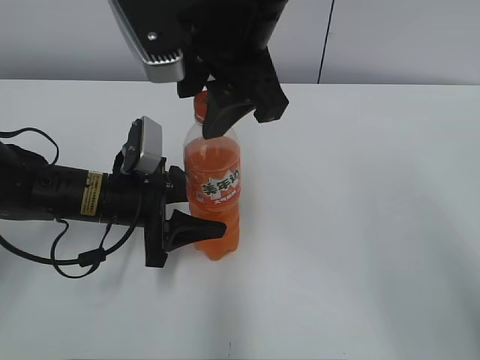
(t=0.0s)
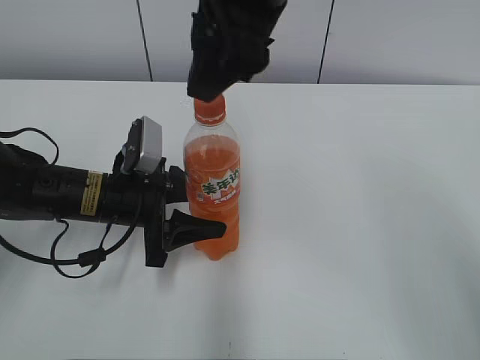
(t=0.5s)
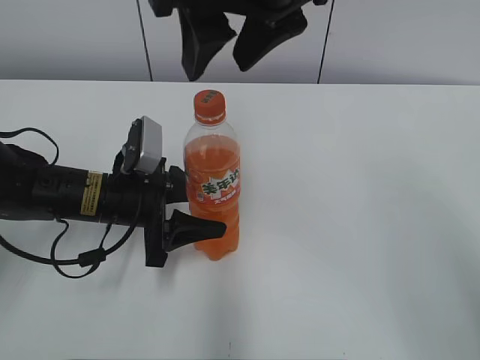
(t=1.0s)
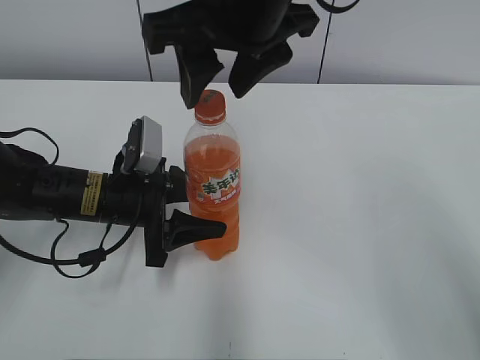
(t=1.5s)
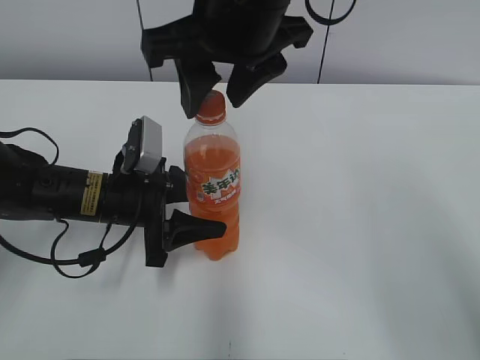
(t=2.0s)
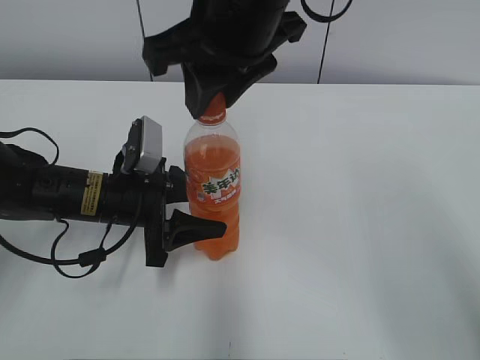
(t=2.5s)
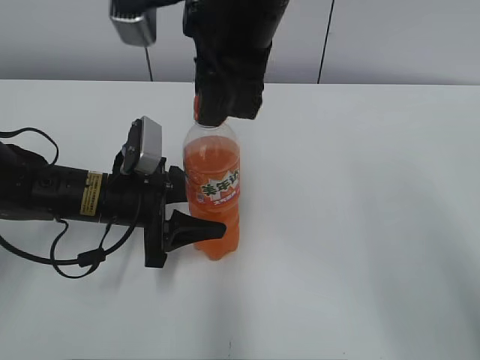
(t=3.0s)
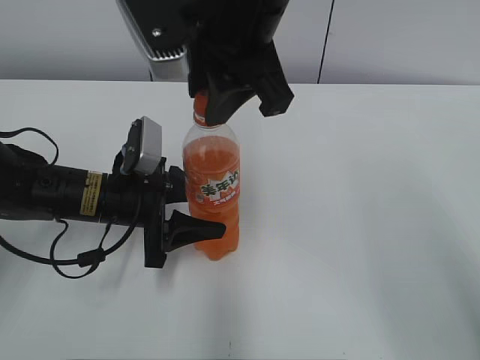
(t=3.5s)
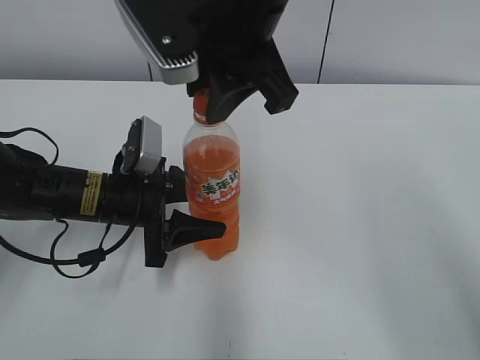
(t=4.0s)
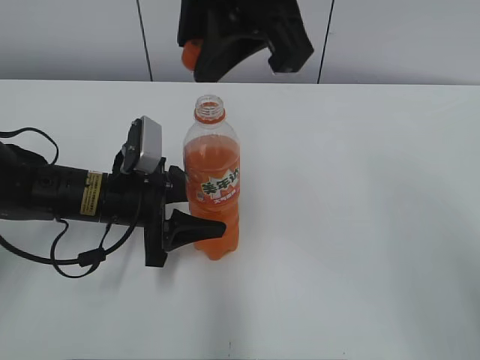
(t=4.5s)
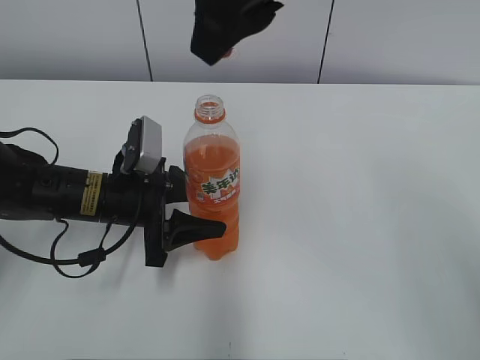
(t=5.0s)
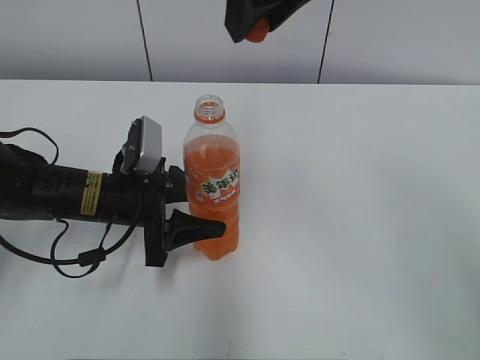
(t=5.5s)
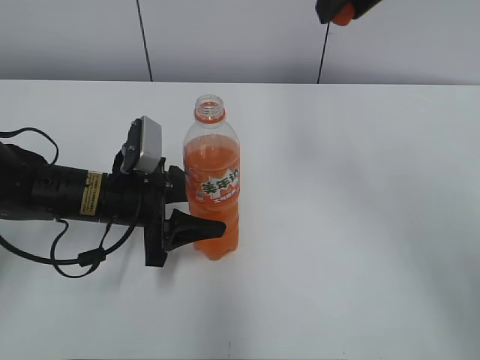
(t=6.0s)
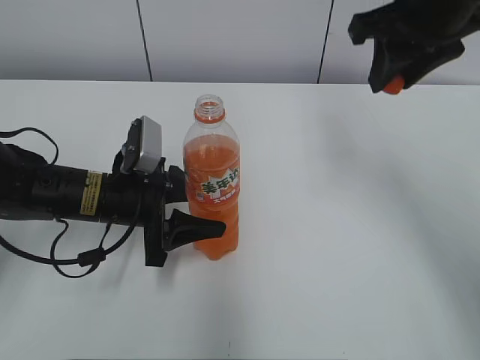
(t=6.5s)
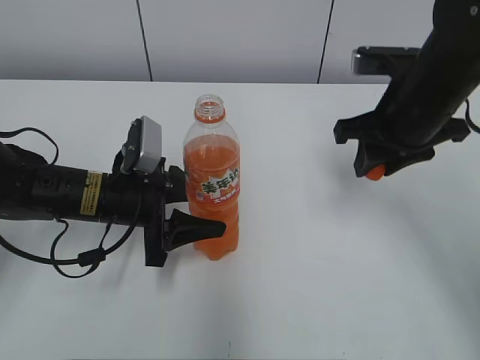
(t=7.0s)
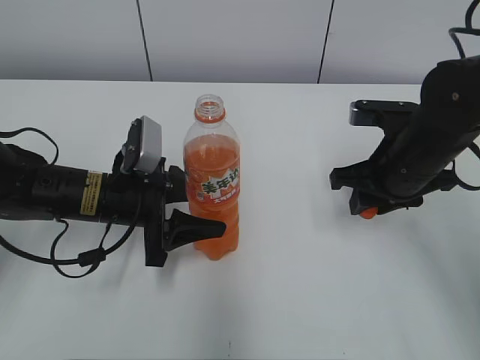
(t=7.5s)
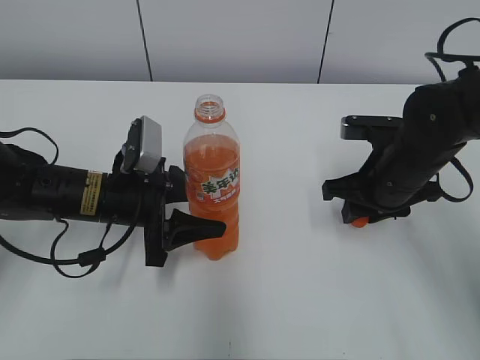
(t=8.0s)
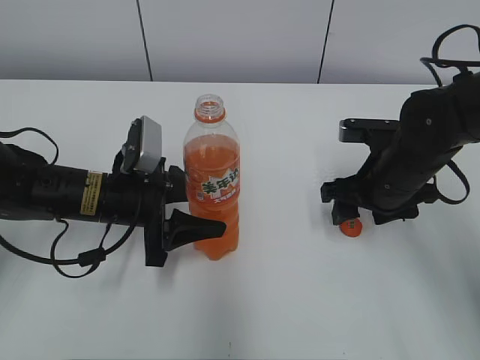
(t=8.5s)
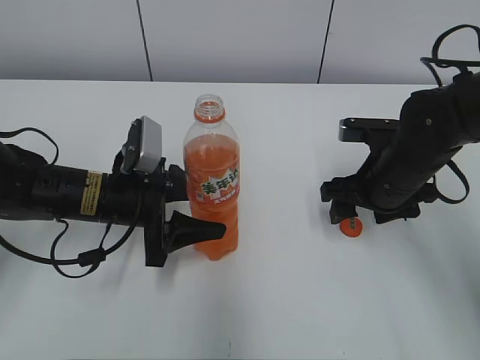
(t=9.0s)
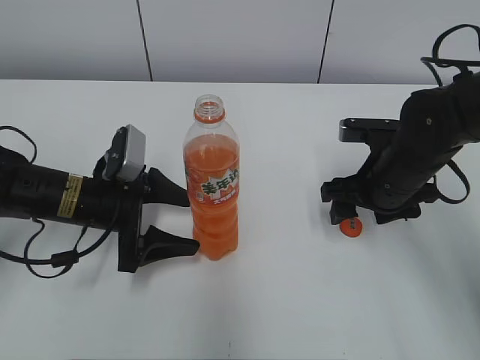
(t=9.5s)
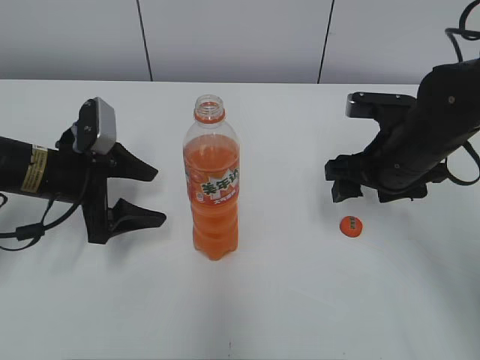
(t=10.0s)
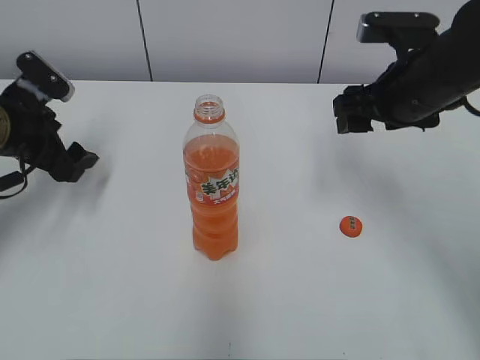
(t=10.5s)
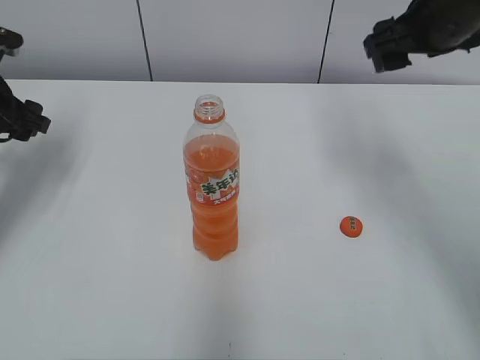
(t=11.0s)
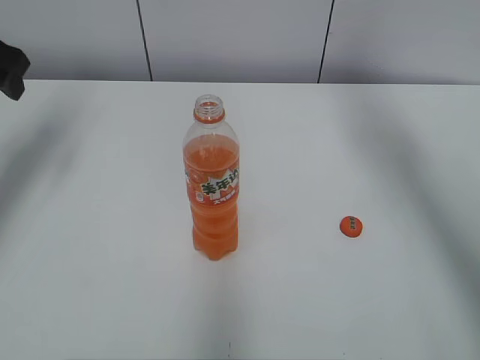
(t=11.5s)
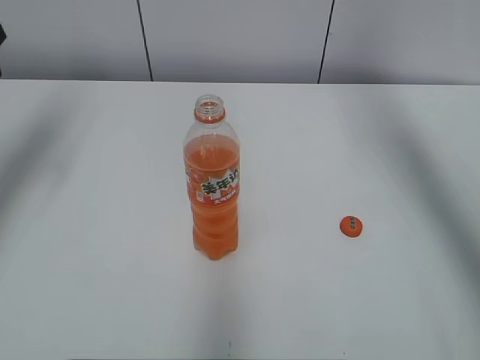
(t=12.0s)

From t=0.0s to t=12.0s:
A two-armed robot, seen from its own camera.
Step, from t=4.5s to t=8.0s: Place the bottle cap on the right.
From t=2.0s to t=4.0s: The right gripper closes its fingers.
From t=4.0s to t=6.0s: The right gripper heads to the right and upward, covering about 15 cm.
From t=6.0s to t=8.0s: The right gripper is displaced downward by roughly 25 cm.
From t=8.0s to t=10.0s: The right gripper opens its fingers. Meanwhile the left gripper heads to the left, covering some 5 cm, and opens its fingers.
From t=10.0s to t=12.0s: The right gripper travels upward by roughly 30 cm. Meanwhile the left gripper heads upward and to the left, covering roughly 25 cm.

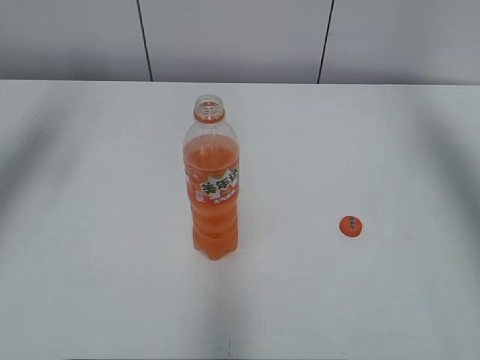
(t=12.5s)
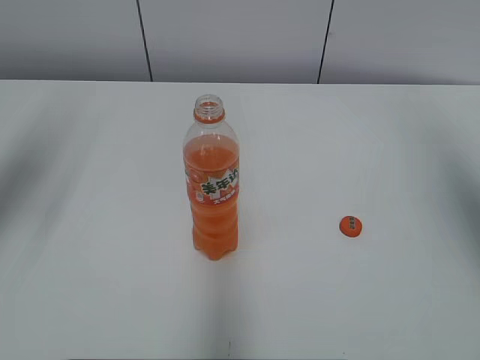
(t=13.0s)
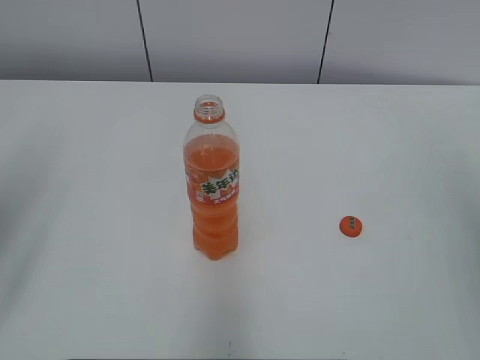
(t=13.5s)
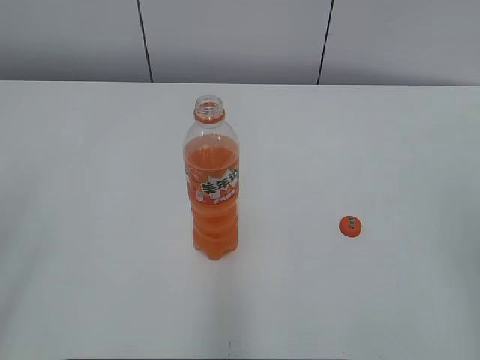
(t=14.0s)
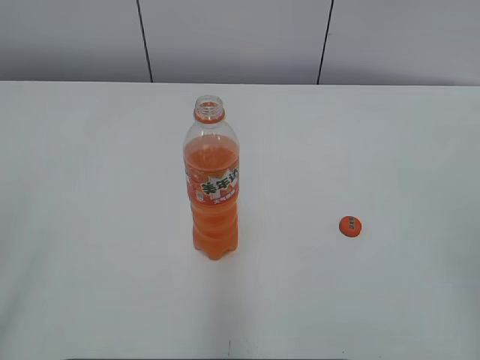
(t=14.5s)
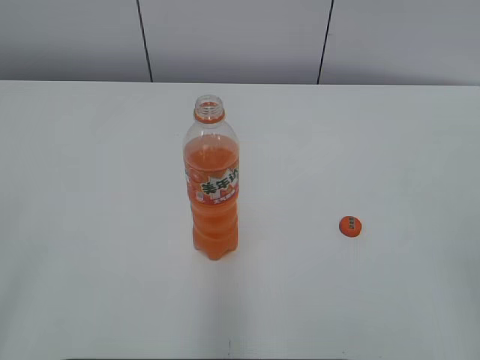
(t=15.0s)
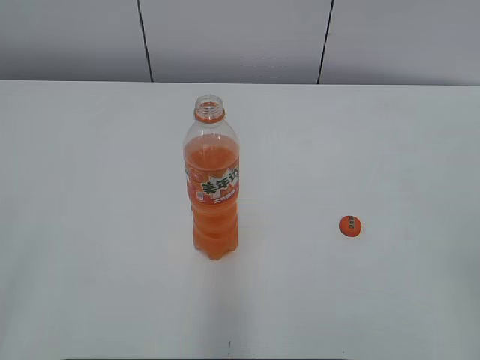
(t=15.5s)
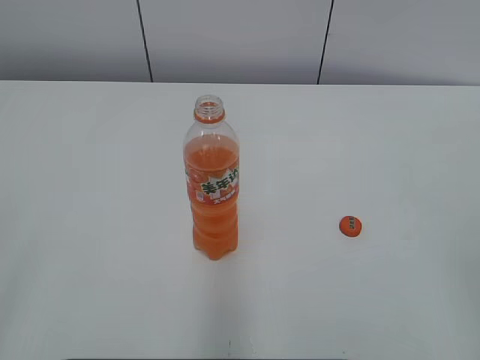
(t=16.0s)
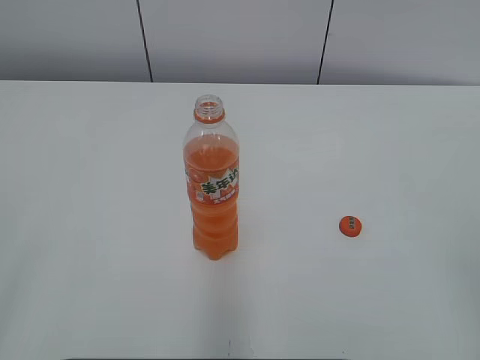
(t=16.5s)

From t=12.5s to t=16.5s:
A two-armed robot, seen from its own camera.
From t=12.5s to t=14.5s: The left gripper travels backward by some 30 cm, while the right gripper heads backward and downward, covering approximately 35 cm.

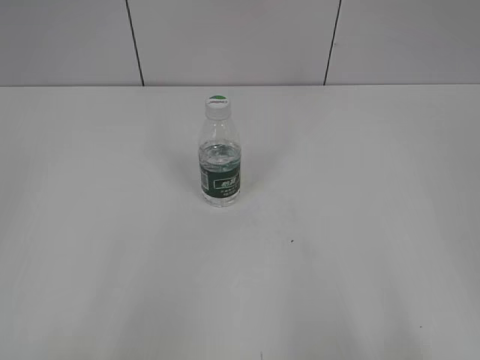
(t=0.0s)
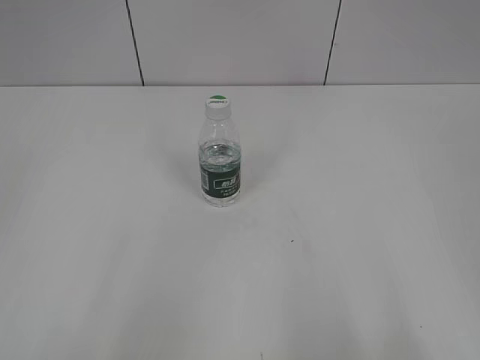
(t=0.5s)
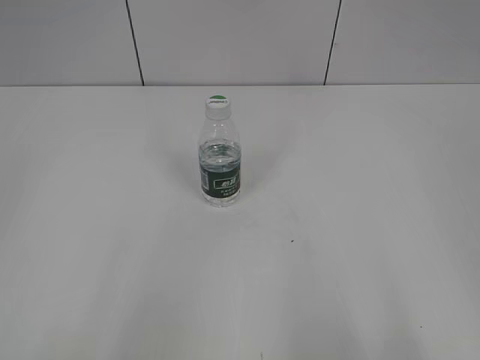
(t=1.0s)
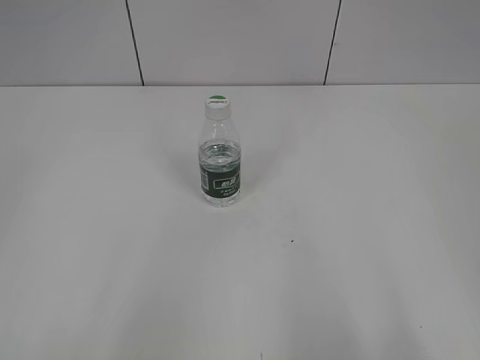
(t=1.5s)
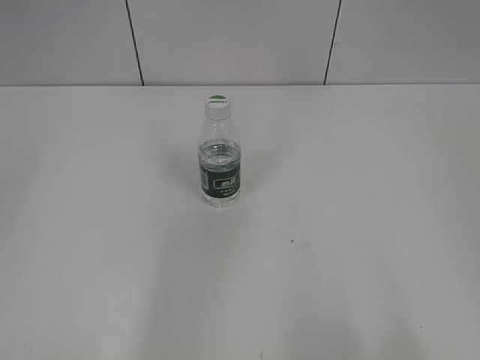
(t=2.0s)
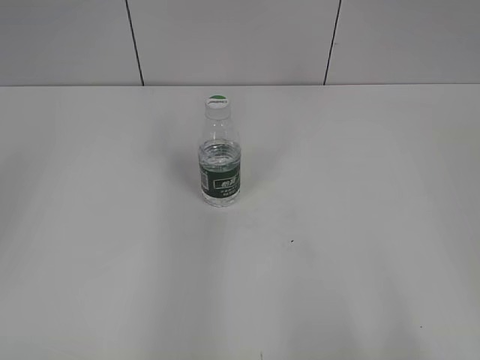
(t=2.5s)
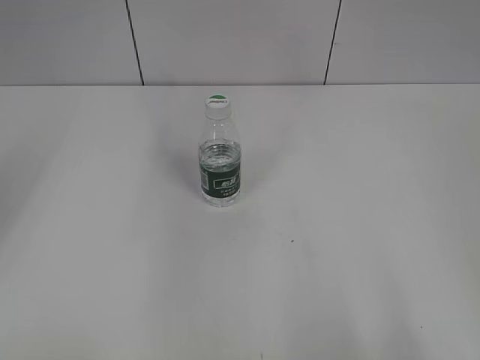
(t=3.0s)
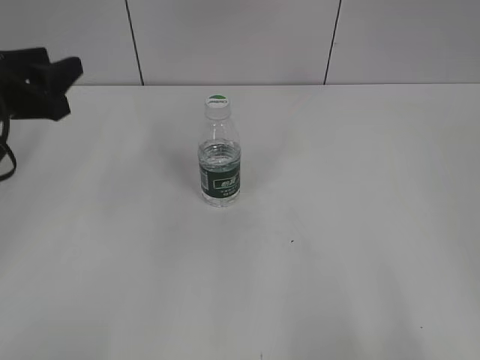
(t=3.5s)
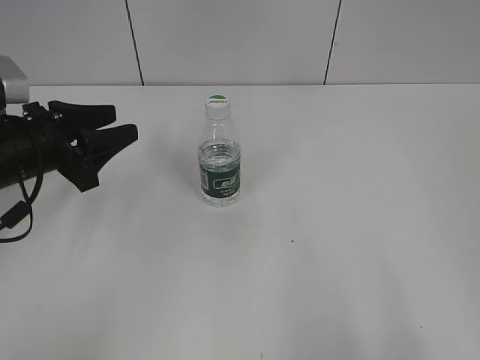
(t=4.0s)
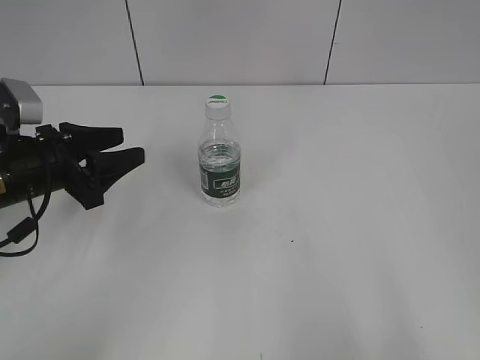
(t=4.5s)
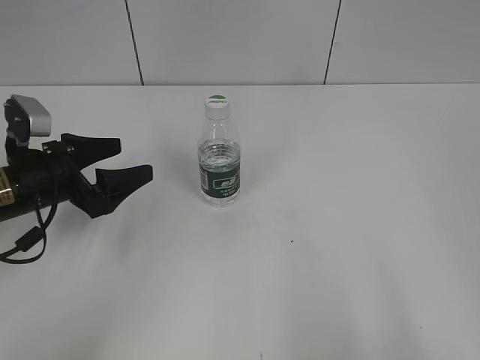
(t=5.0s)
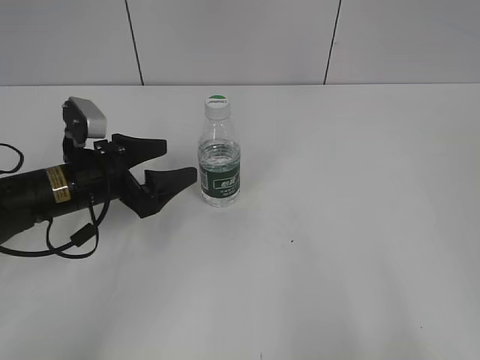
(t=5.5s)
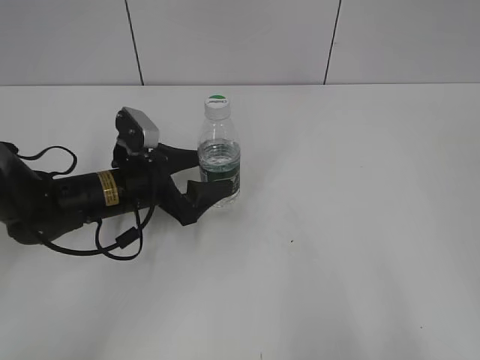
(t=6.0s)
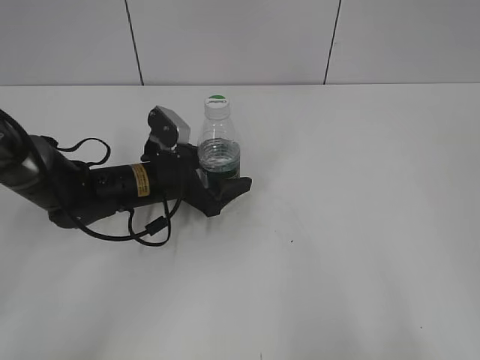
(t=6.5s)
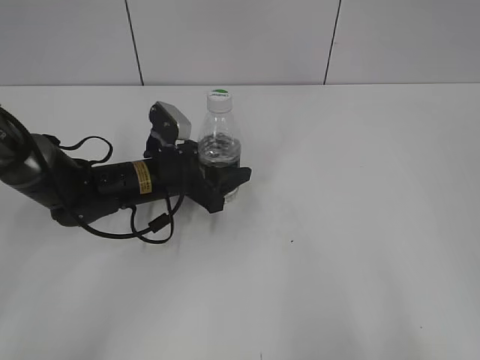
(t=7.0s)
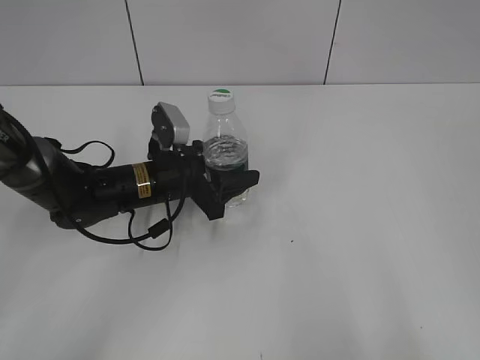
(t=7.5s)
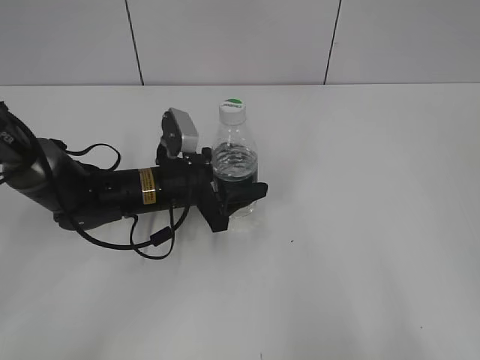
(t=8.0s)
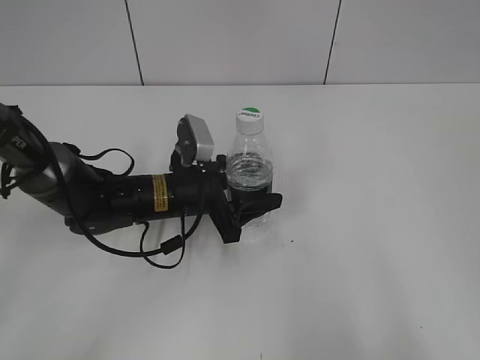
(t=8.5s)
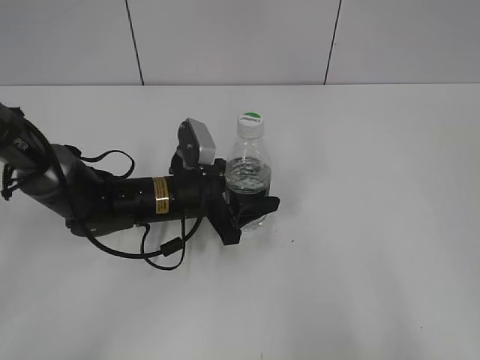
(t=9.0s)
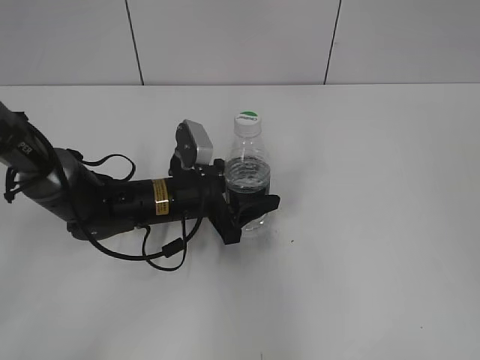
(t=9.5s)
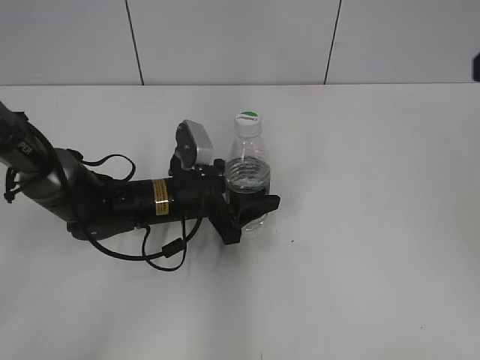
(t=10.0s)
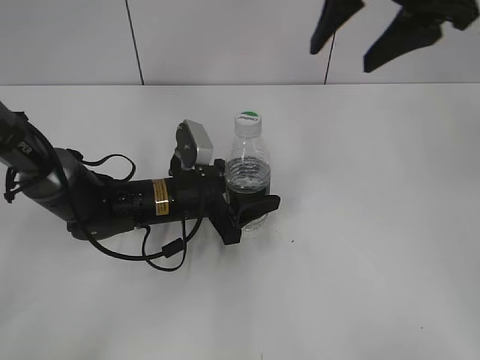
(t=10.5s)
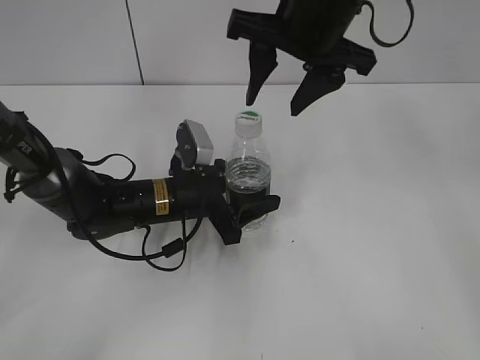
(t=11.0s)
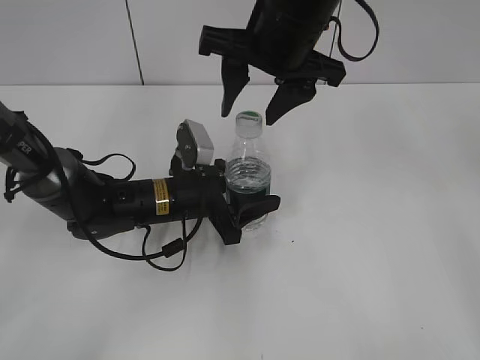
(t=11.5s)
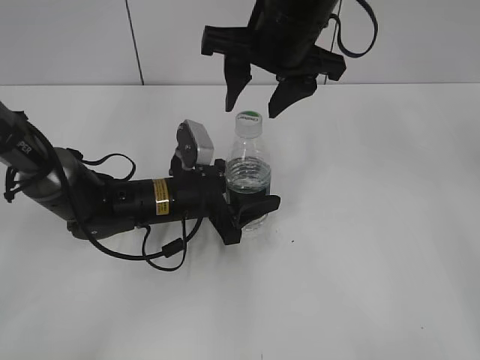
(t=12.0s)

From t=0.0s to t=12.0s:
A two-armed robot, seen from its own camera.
Step, from t=0.0s to t=6.5s: Grasp the bottle and move it to the center of the table with the left gripper.
Step, from t=7.0s to t=9.0s: Lift the bottle and move it to the center of the table with the left gripper.
From t=2.0s to t=4.0s: The left gripper shifts some 30 cm forward and downward.
From t=4.0s to t=6.0s: The left gripper heads to the right and downward, covering about 10 cm, and opens.
From t=6.0s to t=8.0s: The left gripper closes.
From t=8.0s to t=10.0s: The right gripper moves forward and upward, roughly 25 cm.
From t=10.0s to t=12.0s: The right gripper shifts about 25 cm to the left, forward and downward.
